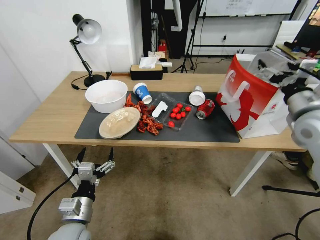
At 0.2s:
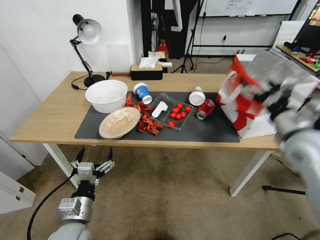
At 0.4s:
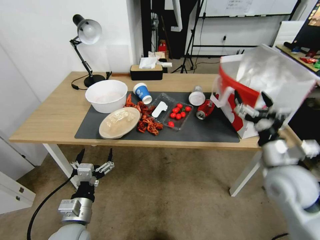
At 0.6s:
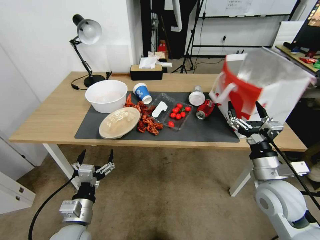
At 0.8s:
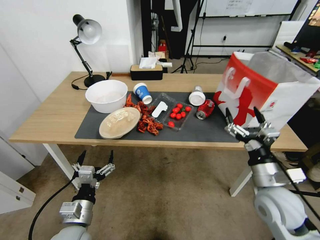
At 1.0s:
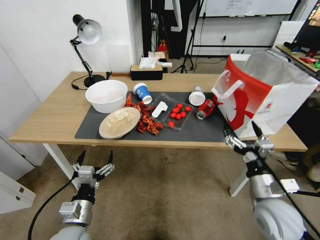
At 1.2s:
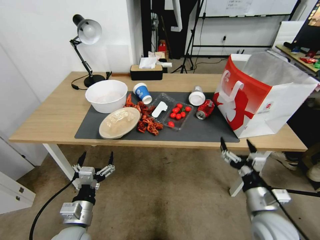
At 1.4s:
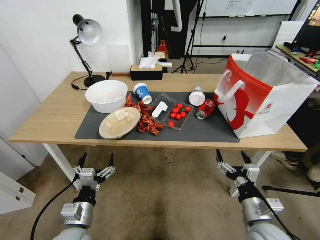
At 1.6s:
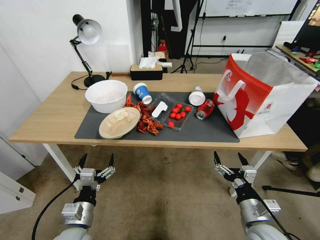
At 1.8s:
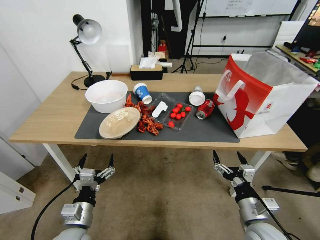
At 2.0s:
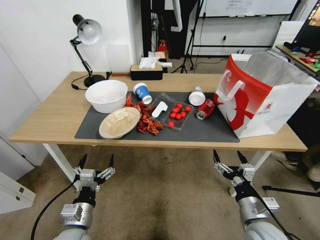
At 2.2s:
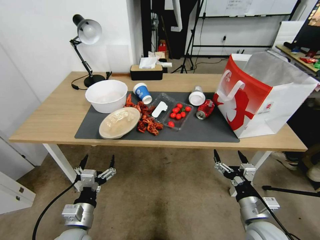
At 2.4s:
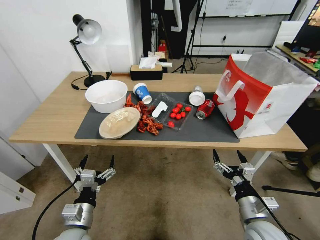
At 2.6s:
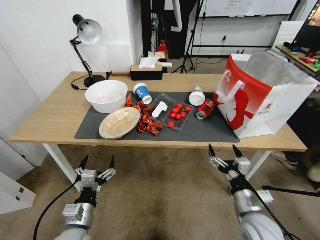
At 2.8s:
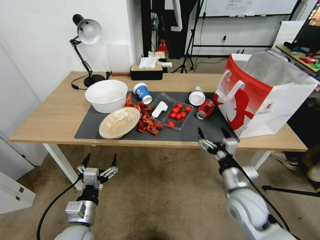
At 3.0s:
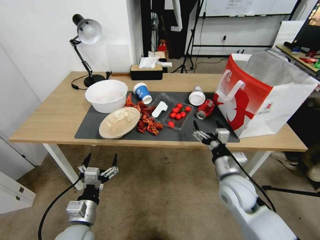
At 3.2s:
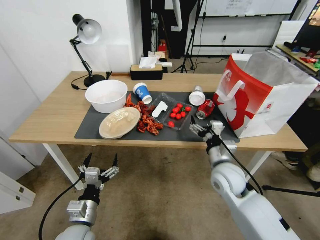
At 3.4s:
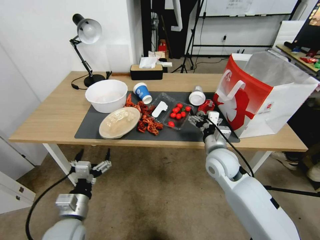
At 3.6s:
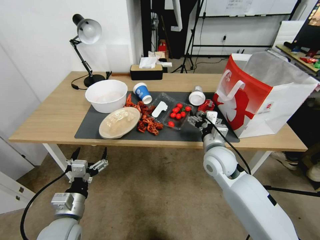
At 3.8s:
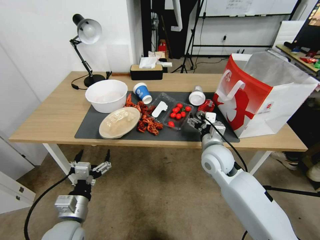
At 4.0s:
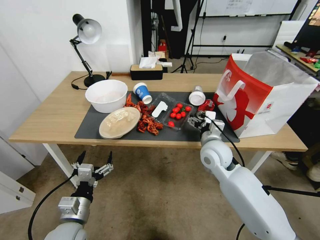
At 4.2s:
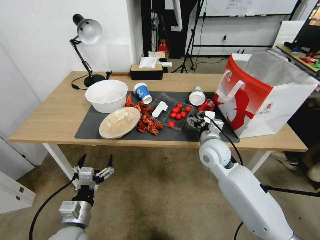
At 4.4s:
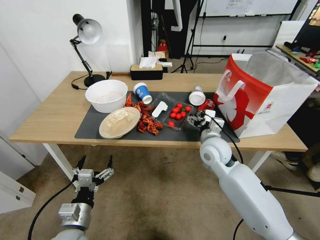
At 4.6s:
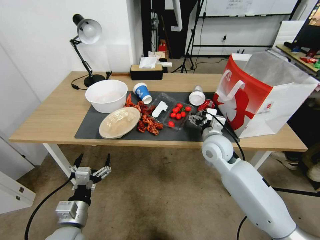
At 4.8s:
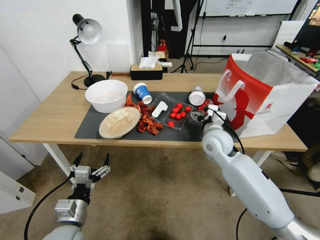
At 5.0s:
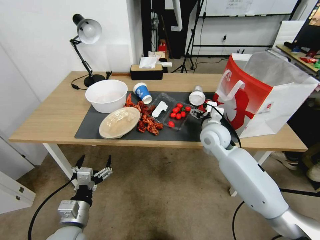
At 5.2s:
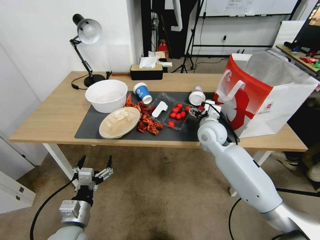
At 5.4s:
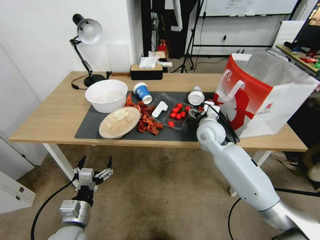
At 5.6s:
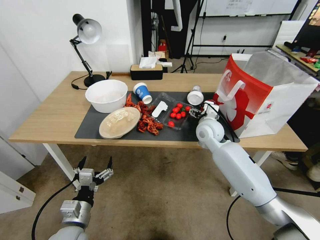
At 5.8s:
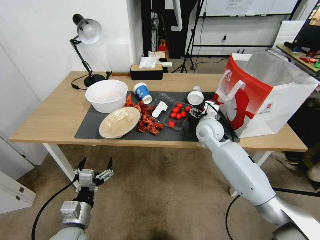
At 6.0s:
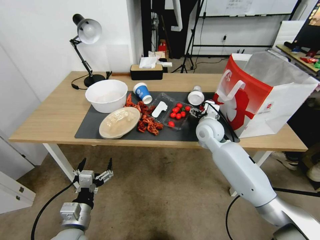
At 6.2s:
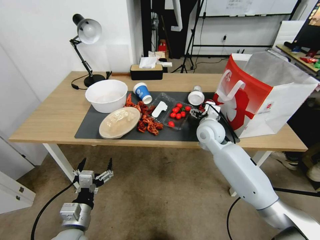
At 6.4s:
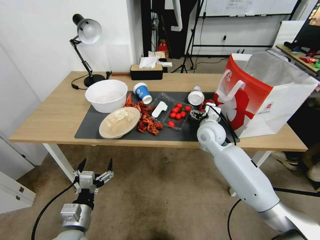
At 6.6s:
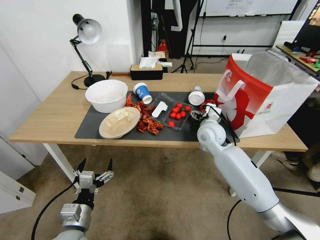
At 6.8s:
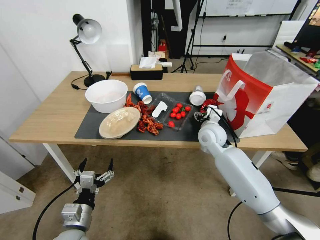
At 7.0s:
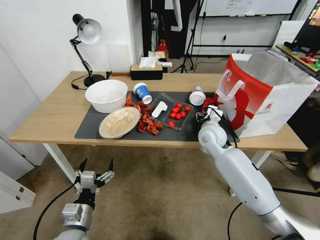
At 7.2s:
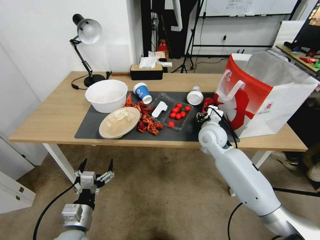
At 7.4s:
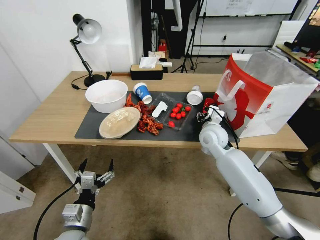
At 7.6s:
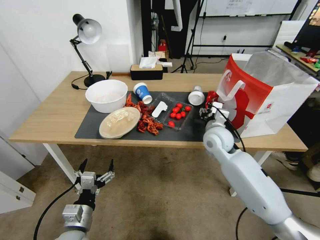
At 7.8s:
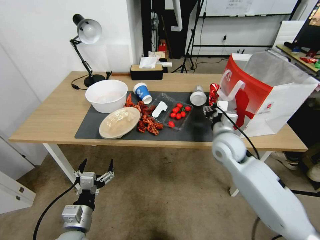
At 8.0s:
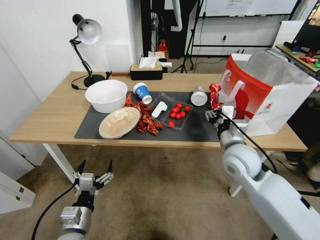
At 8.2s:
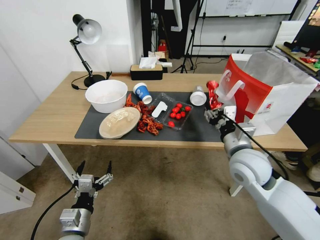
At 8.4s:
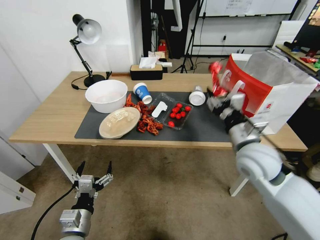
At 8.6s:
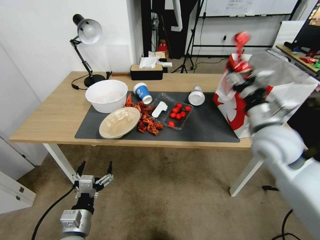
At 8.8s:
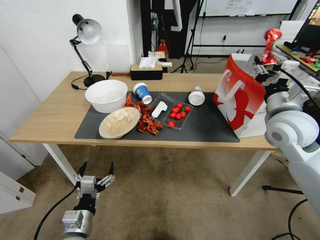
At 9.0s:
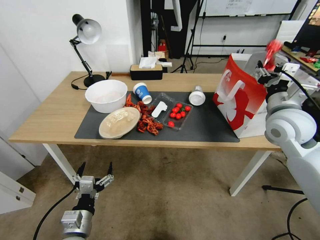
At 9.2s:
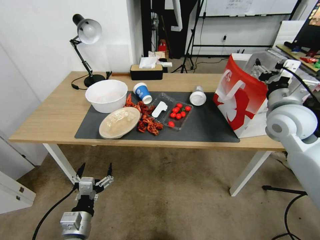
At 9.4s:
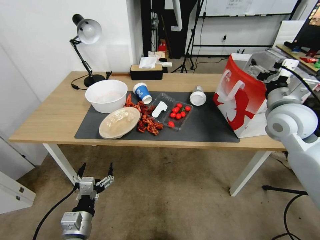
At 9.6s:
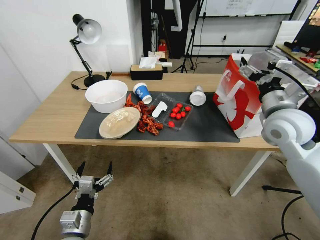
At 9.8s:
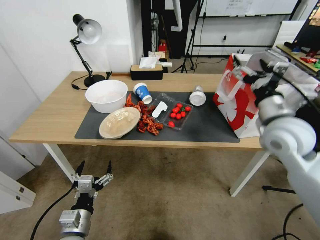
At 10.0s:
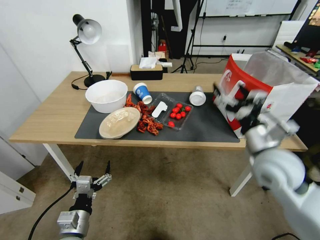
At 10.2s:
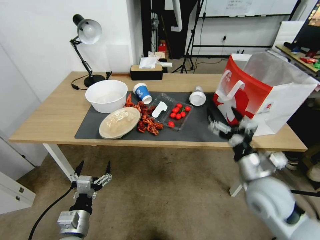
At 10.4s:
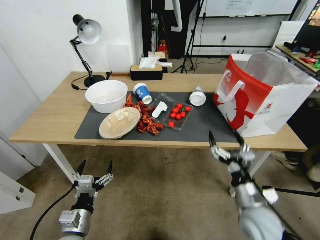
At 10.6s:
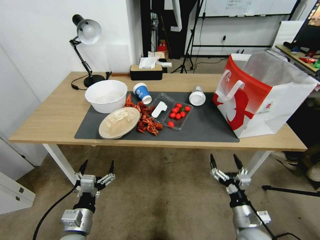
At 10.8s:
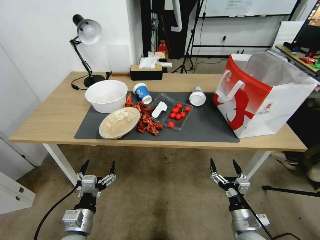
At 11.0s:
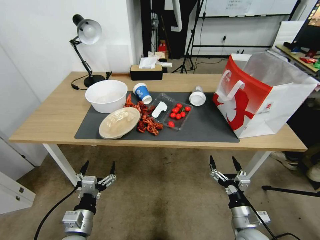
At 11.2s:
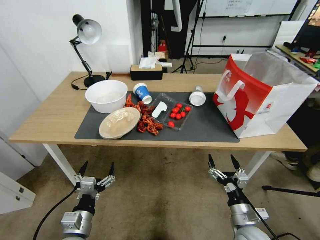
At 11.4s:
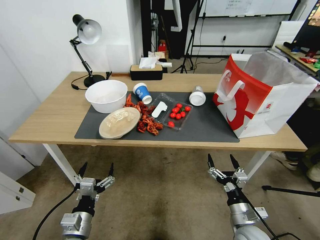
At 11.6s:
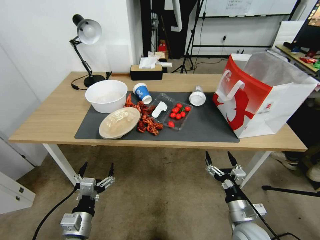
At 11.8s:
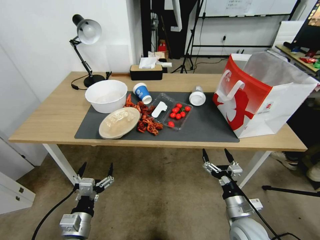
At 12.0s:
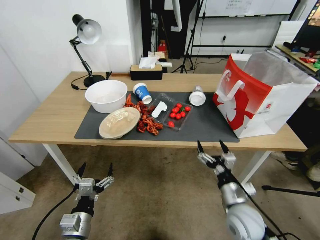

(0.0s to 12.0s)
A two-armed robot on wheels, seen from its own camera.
0.0s - 1.6s: The right gripper goes some 35 cm downward, backward and to the left.
1.6s - 3.0s: The right gripper goes some 15 cm forward and to the left.
3.0s - 4.4s: The right gripper shifts roughly 10 cm forward.
4.4s - 6.0s: The right gripper shifts about 10 cm forward.
6.0s - 7.6s: The right gripper closes.
7.6s - 9.0s: The right gripper shifts about 20 cm to the right and upward.
9.0s - 10.4s: The right gripper goes about 30 cm downward and backward, and opens up.

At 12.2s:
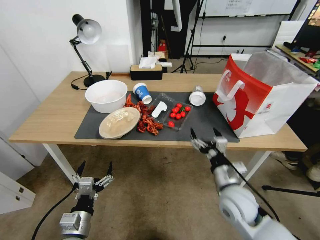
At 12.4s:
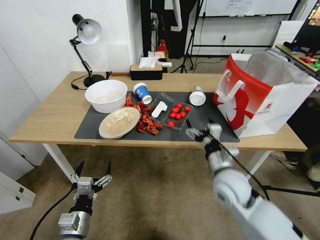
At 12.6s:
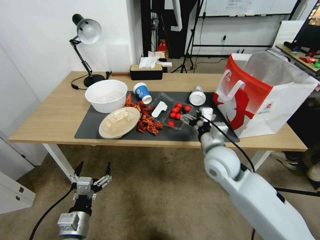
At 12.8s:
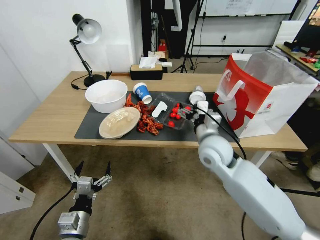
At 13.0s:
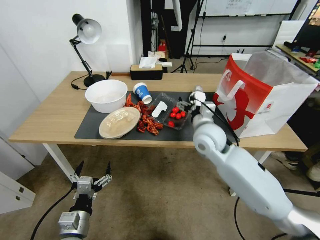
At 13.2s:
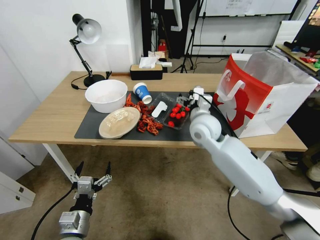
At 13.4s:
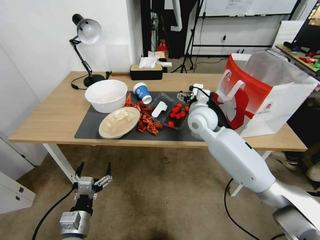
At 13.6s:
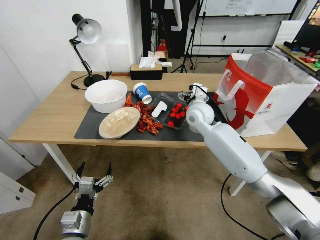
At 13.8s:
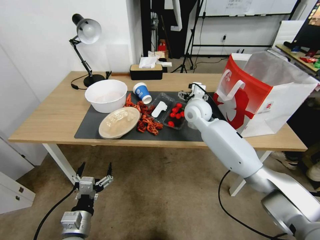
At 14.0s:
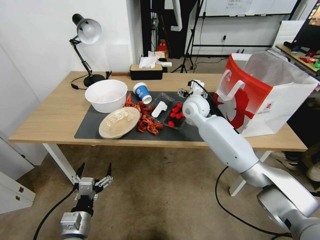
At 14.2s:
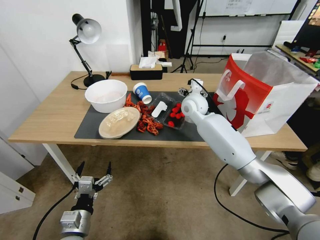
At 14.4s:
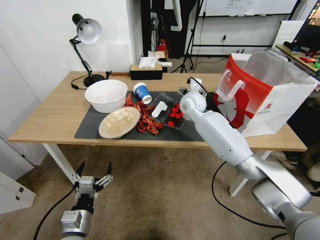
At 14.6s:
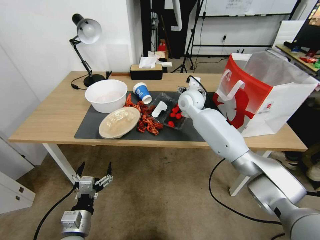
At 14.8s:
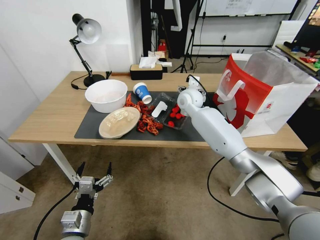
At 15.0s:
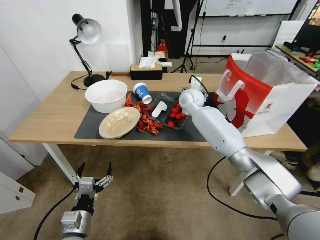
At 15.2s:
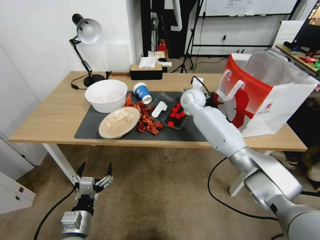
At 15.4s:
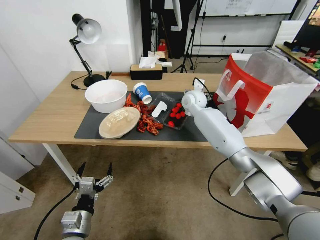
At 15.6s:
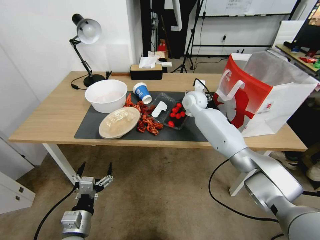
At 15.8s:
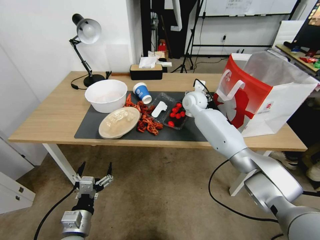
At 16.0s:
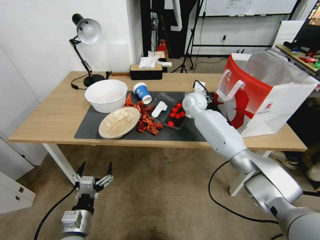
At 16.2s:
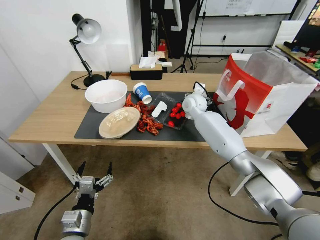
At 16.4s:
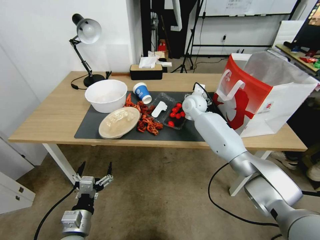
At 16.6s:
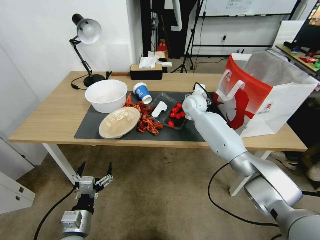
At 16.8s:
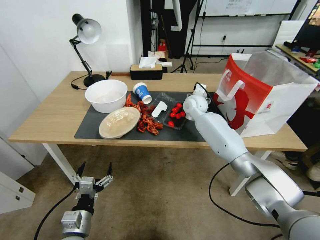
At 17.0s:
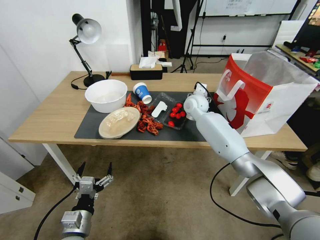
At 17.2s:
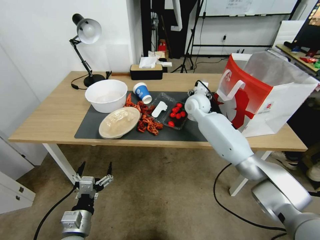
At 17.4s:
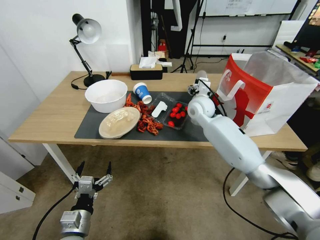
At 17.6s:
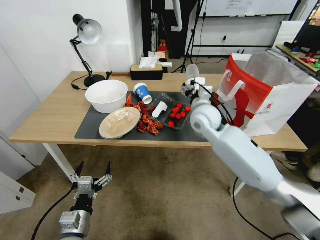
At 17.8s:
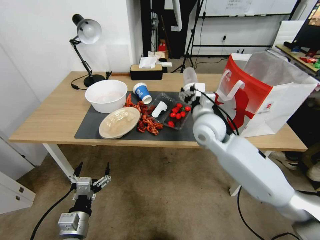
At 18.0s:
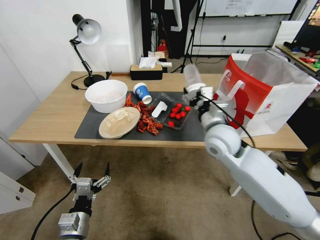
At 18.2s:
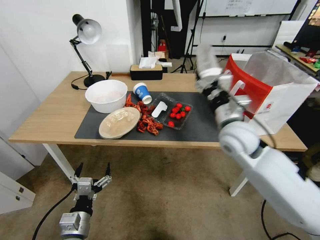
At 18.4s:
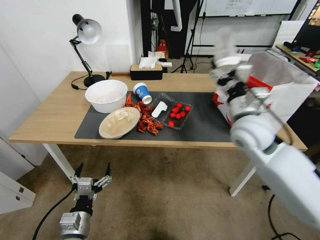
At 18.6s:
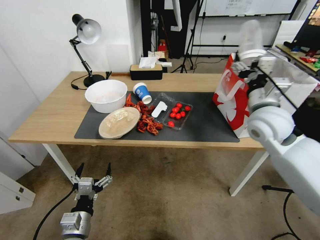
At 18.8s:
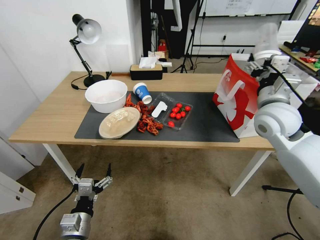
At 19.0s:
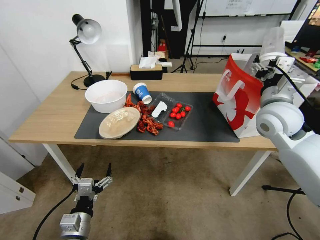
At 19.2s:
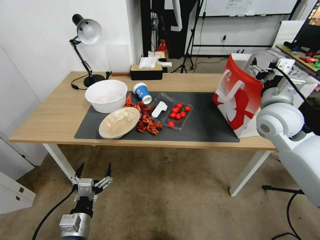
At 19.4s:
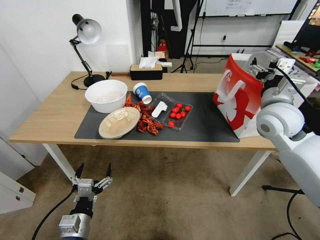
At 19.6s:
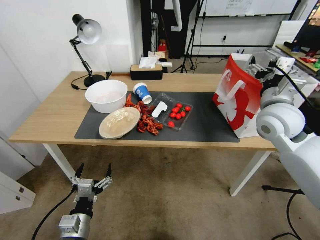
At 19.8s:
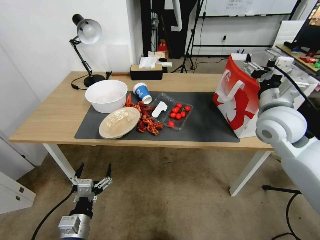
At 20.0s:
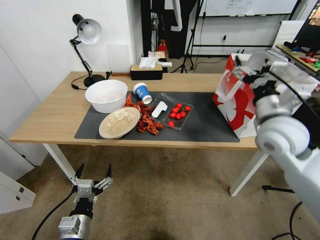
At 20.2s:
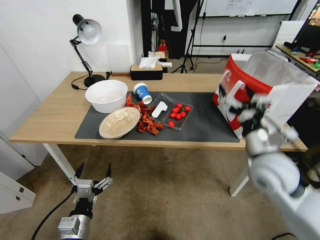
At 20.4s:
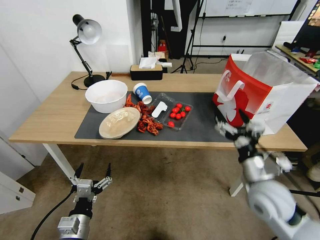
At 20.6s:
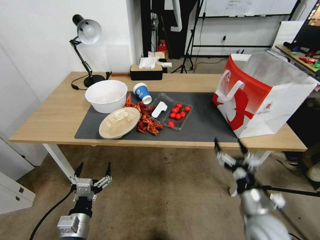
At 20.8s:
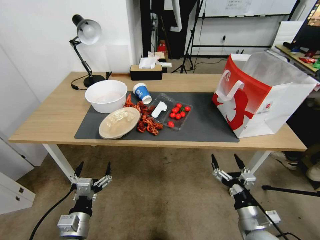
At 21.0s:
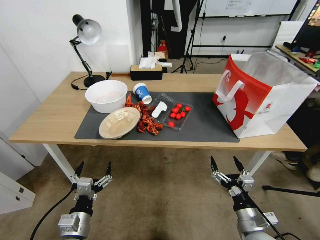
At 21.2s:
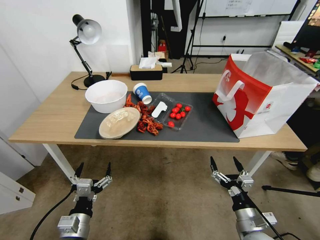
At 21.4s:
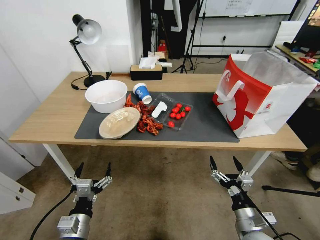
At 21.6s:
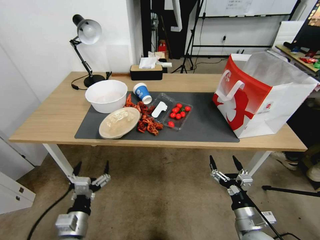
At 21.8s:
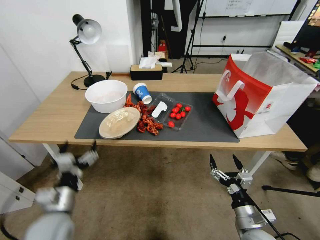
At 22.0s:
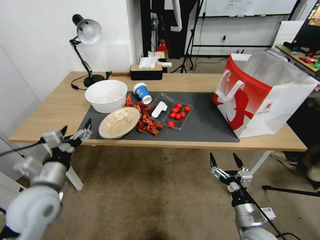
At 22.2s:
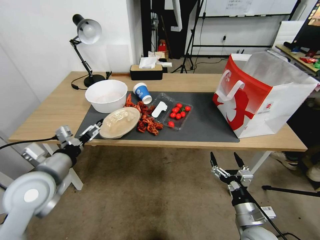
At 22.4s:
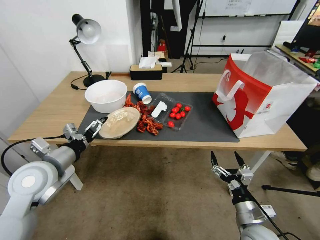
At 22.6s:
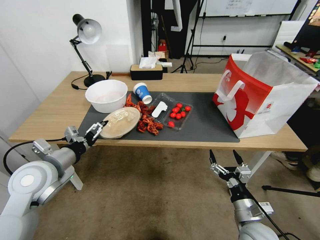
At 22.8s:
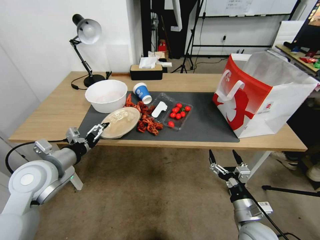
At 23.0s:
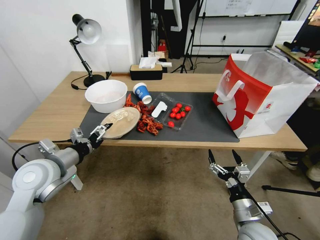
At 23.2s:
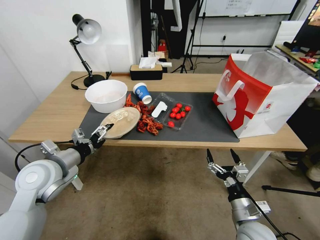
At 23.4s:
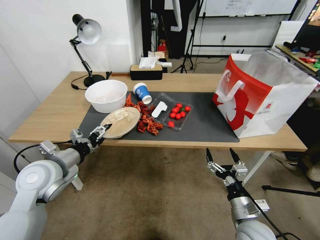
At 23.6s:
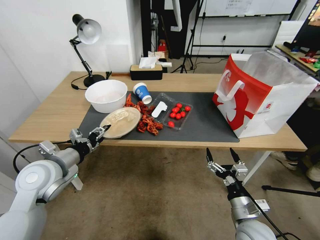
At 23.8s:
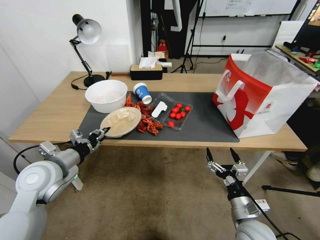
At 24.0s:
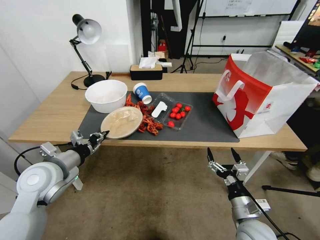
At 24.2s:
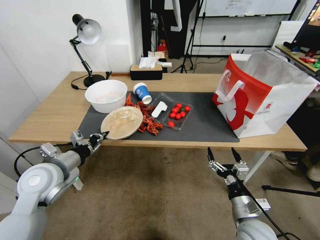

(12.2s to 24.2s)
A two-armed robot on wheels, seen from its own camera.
12.2s - 13.8s: The right gripper moves forward and upward, roughly 30 cm.
13.8s - 15.2s: The right gripper shifts approximately 10 cm forward.
15.2s - 16.6s: There are only small adjustments of the grippers.
16.6s - 18.2s: The right gripper shifts approximately 20 cm backward.
18.2s - 19.8s: The right gripper goes approximately 15 cm to the right and upward.
19.8s - 21.2s: The right gripper heads downward and backward, covering about 35 cm.
21.2s - 22.6s: The left gripper shifts about 25 cm upward, forward and to the left.
22.6s - 24.2s: The left gripper closes up.
